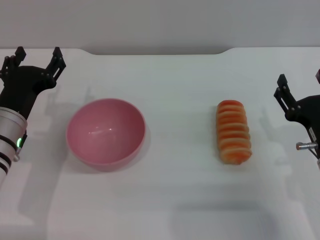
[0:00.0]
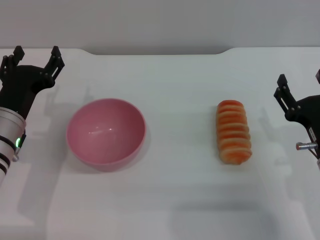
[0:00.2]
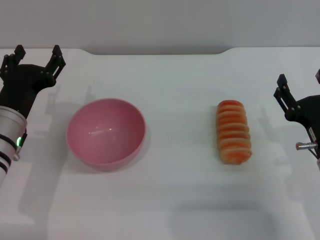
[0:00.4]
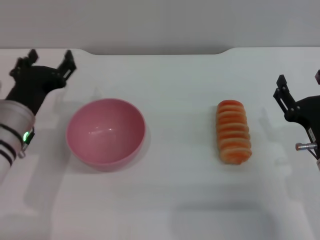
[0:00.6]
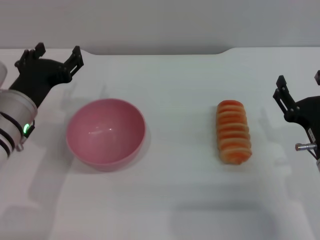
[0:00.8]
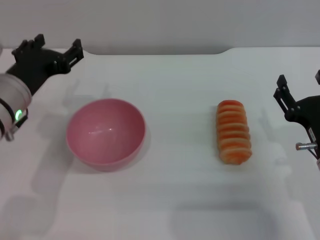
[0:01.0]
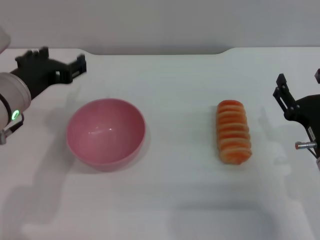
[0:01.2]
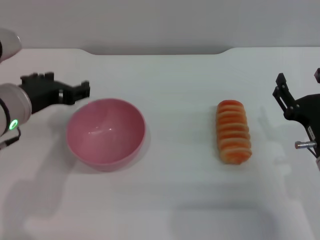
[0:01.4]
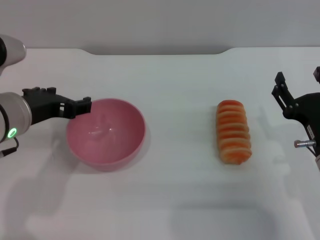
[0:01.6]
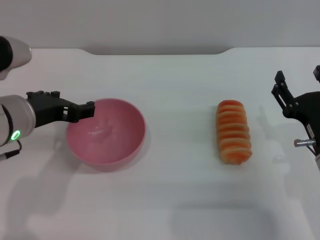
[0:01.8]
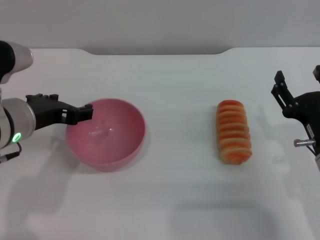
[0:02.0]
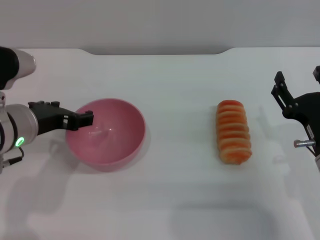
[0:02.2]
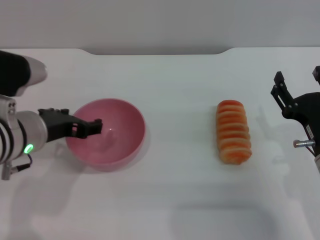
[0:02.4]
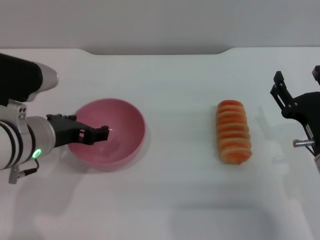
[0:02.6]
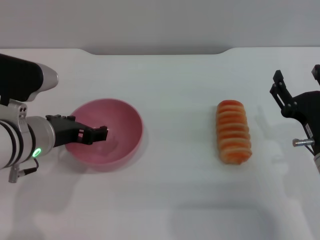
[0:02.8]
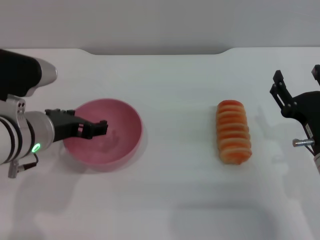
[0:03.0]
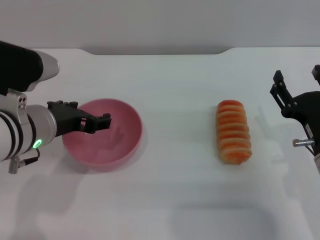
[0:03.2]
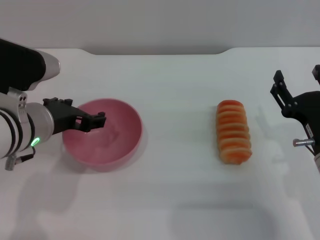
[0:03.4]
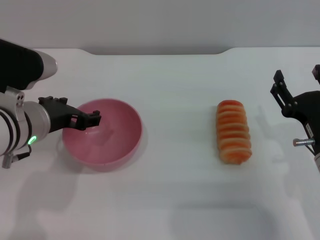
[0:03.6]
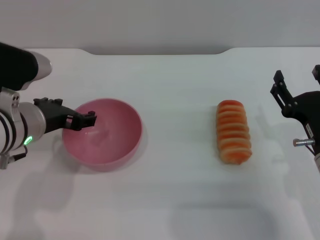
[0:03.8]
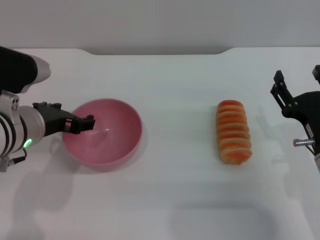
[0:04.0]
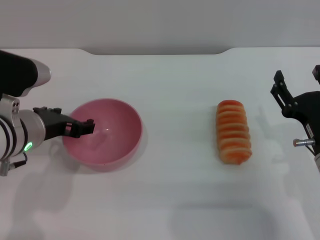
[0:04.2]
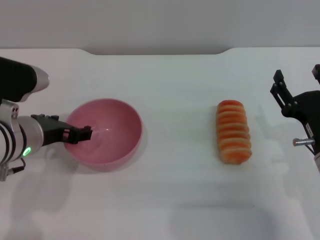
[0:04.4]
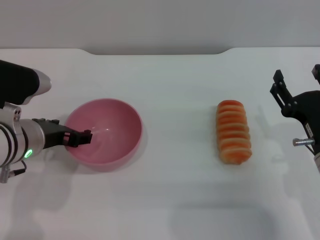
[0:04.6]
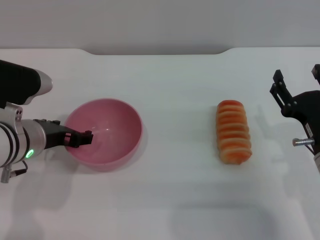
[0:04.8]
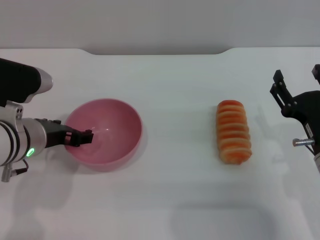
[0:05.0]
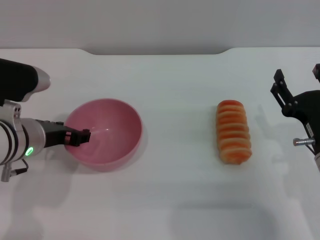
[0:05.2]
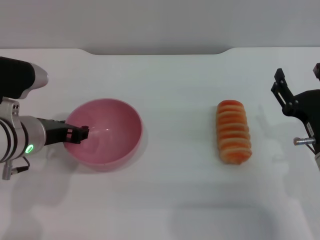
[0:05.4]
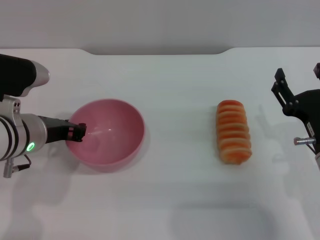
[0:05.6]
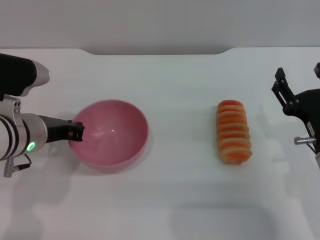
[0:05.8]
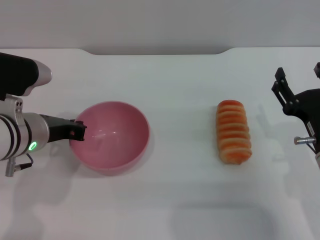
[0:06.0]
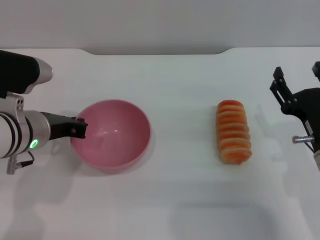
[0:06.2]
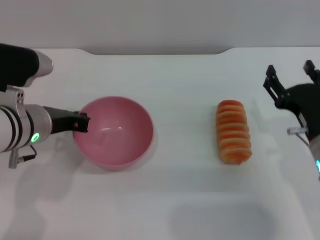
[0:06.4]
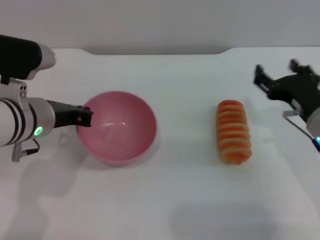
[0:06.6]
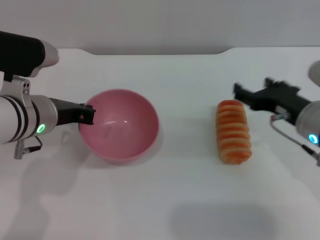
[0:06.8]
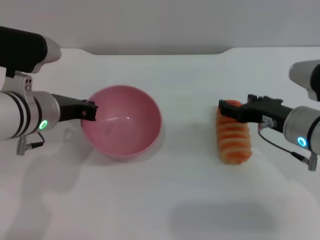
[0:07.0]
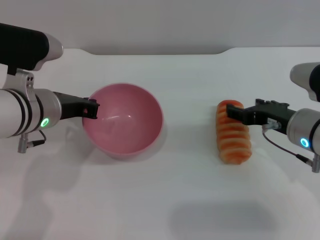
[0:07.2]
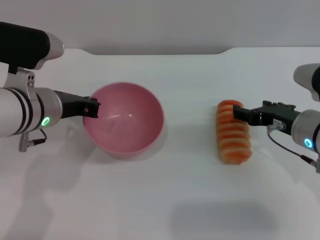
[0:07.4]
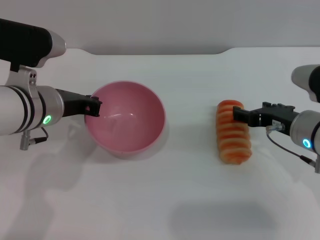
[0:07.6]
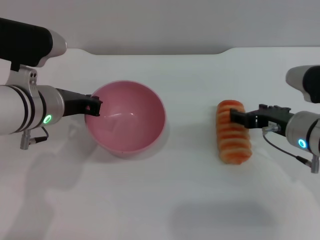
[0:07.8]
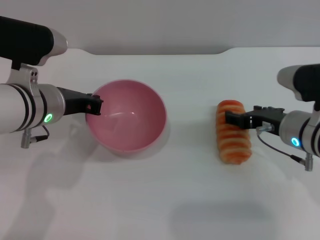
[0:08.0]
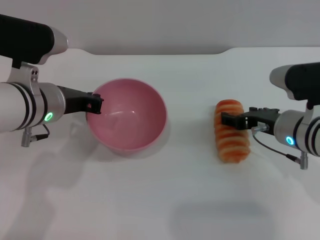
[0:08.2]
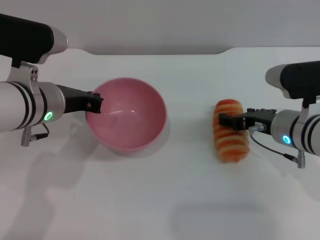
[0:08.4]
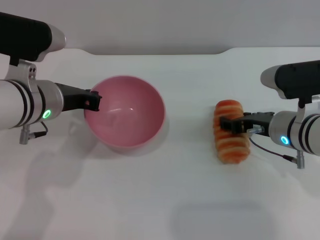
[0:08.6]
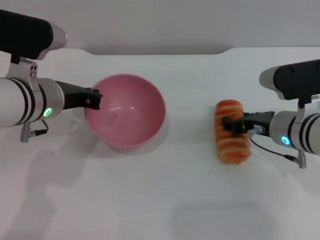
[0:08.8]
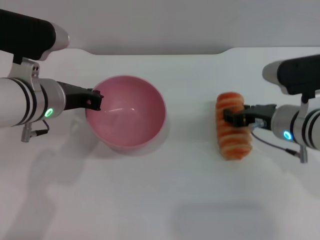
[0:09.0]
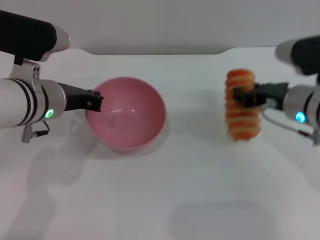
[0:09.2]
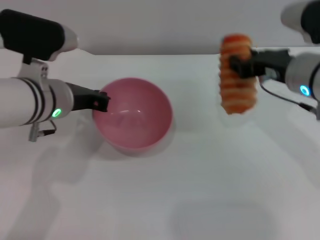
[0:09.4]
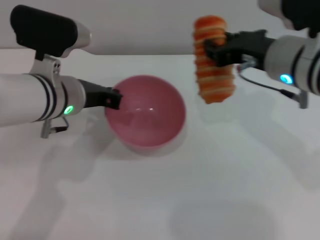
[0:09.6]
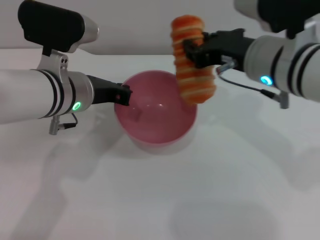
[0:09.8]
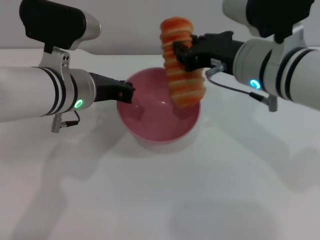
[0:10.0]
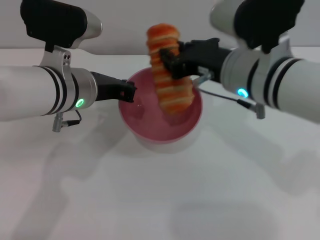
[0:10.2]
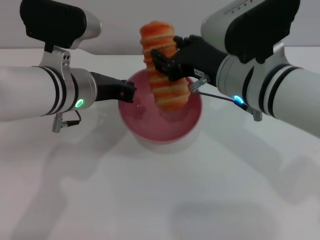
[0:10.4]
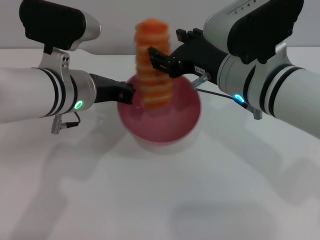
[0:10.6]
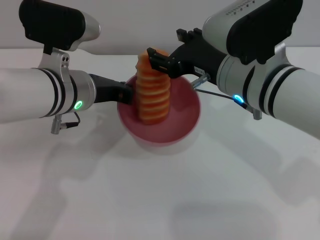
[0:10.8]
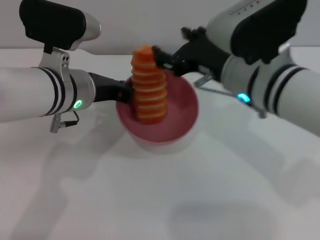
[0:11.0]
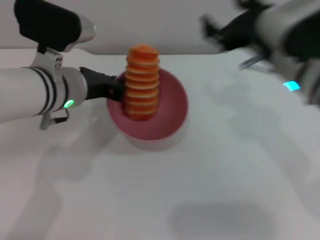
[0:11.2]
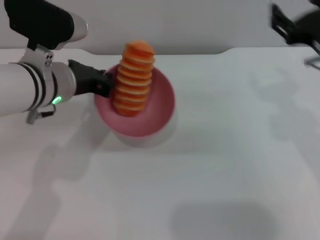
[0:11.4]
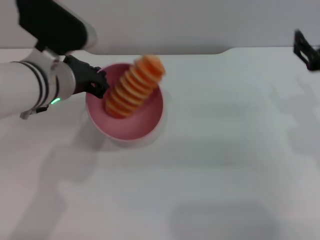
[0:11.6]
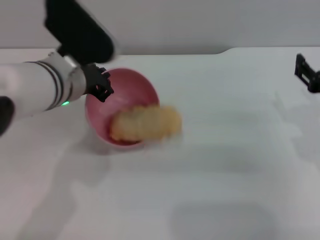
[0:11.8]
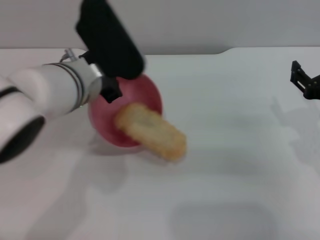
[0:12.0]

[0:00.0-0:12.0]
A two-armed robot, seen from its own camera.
Task of the whole recording: put the bread into the pink bowl and pour it out repeatedly.
Step, 0:00.0 to 0:07.2: Pick up the bowl with the left gripper.
Step, 0:07.4 to 0:09.2: Pick up the bread with the right gripper.
Step, 0:09.4 to 0:11.0: Place the bread into the bowl.
0:00.0 to 0:01.6: The left gripper travels upward by about 10 cm.
0:01.6 to 0:04.4: The grippers move only a little.
0:04.4 to 0:06.0: The left gripper closes up.
0:06.0 to 0:07.6: The right gripper moves forward, roughly 5 cm.
0:07.6 to 0:09.0: The grippers stay close to where they were, moving slightly.
0:09.0 to 0:10.4: The right gripper is displaced upward and to the left by approximately 15 cm.
0:10.4 to 0:12.0: The right gripper shifts some 20 cm to the right and downward, and opens its fingers.

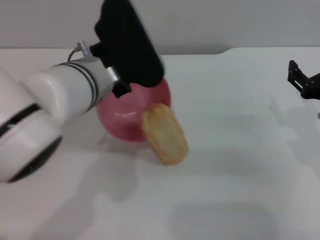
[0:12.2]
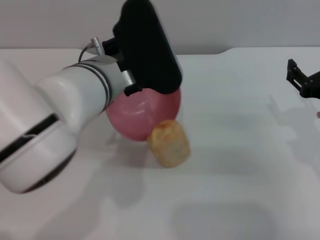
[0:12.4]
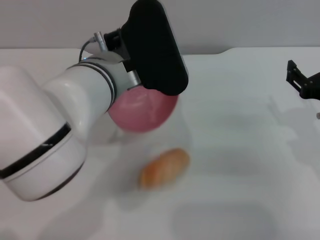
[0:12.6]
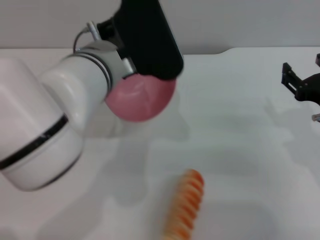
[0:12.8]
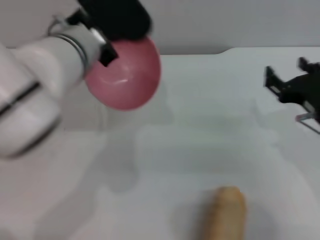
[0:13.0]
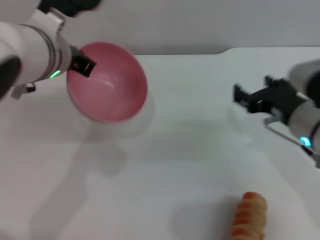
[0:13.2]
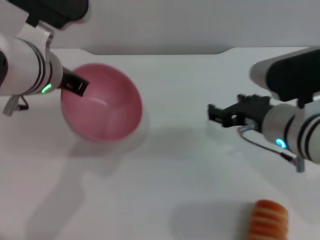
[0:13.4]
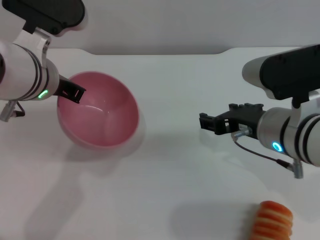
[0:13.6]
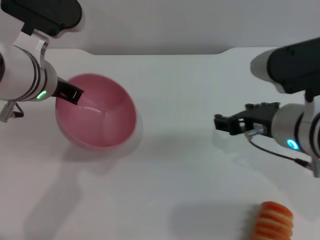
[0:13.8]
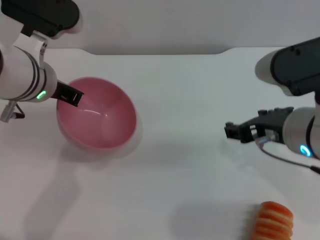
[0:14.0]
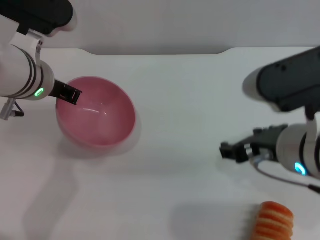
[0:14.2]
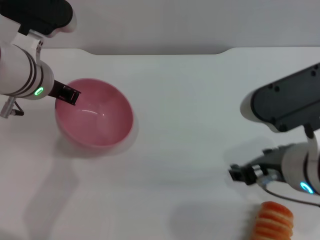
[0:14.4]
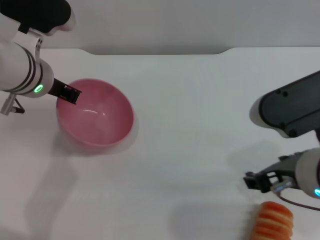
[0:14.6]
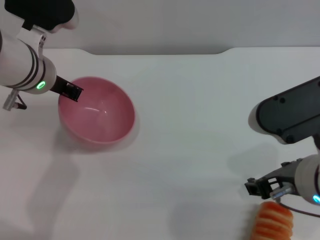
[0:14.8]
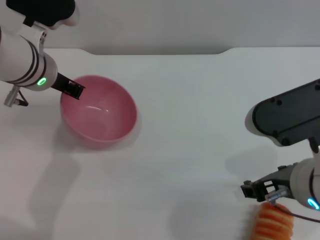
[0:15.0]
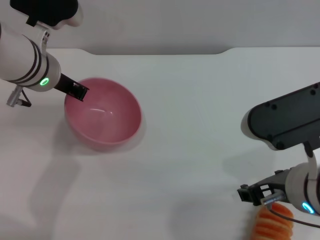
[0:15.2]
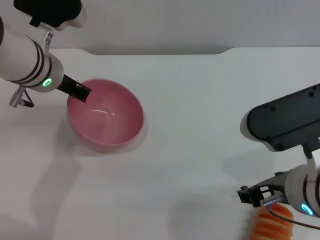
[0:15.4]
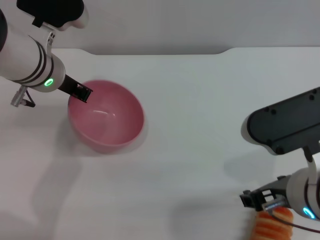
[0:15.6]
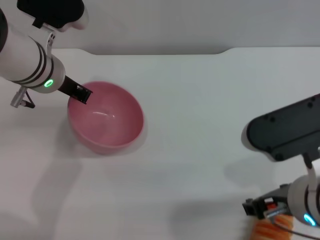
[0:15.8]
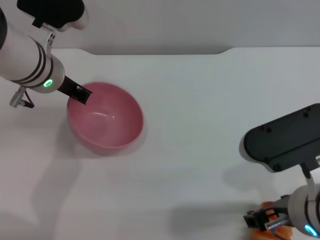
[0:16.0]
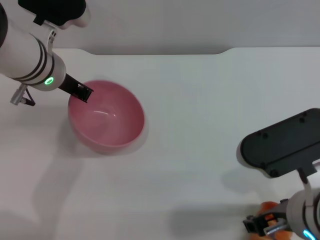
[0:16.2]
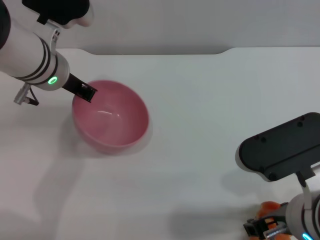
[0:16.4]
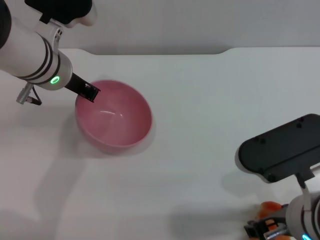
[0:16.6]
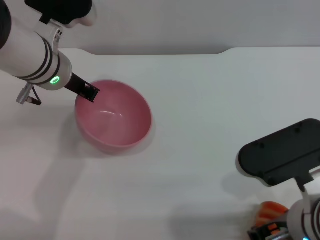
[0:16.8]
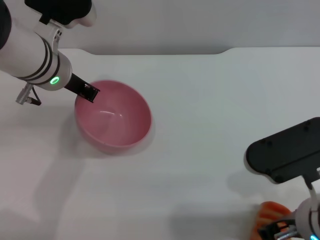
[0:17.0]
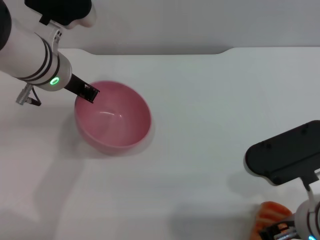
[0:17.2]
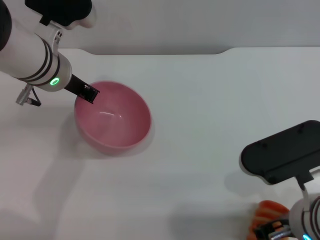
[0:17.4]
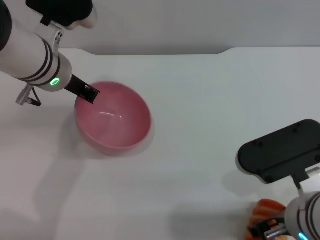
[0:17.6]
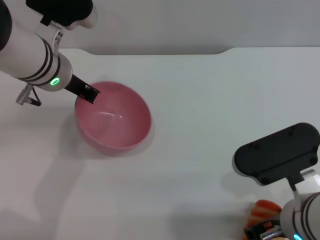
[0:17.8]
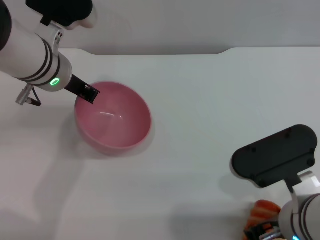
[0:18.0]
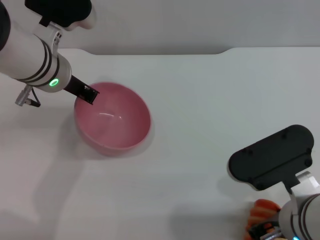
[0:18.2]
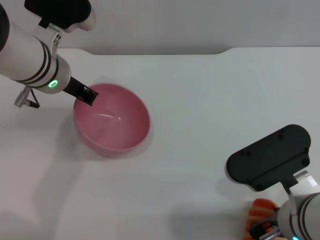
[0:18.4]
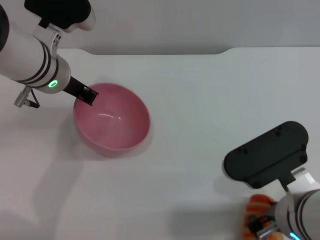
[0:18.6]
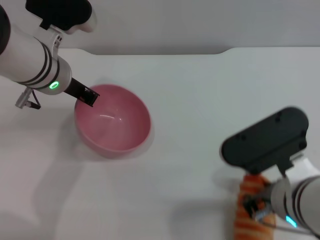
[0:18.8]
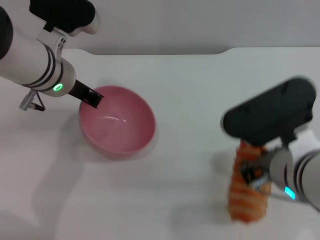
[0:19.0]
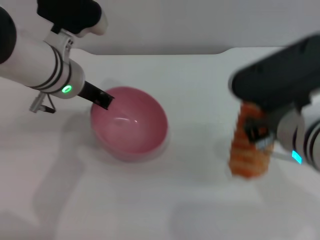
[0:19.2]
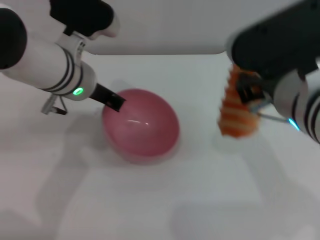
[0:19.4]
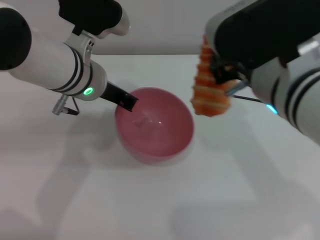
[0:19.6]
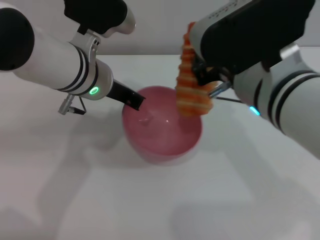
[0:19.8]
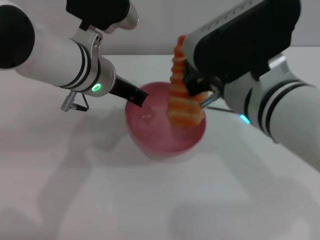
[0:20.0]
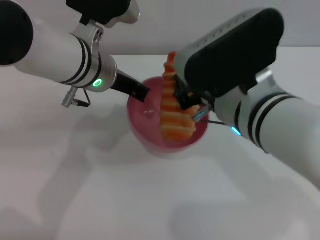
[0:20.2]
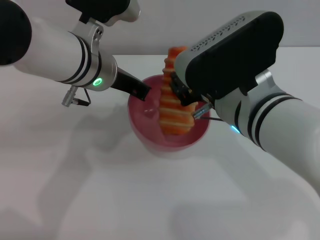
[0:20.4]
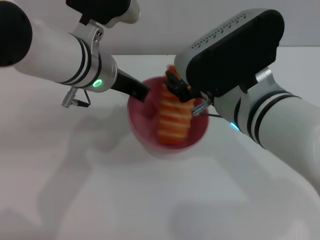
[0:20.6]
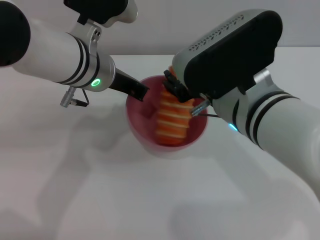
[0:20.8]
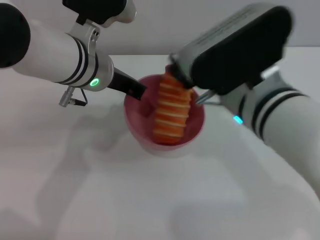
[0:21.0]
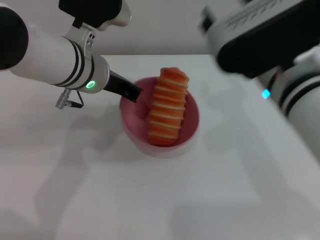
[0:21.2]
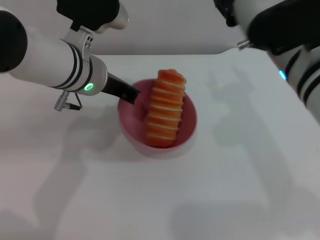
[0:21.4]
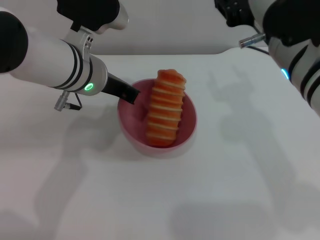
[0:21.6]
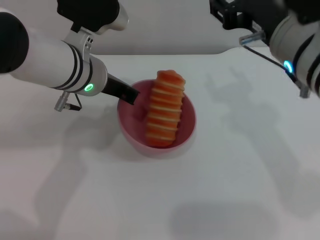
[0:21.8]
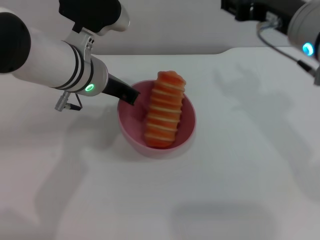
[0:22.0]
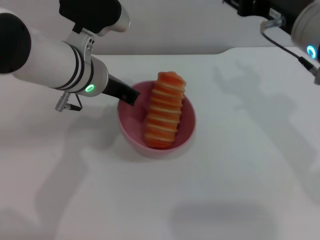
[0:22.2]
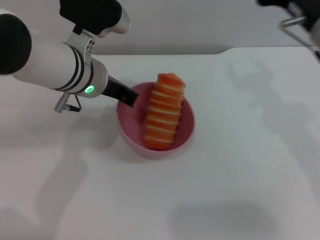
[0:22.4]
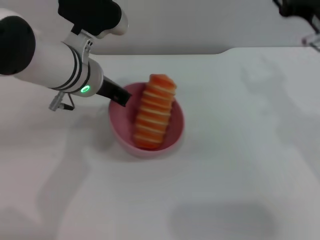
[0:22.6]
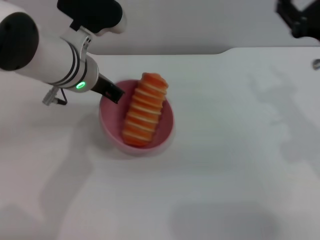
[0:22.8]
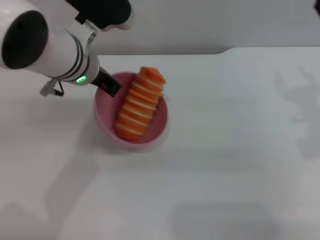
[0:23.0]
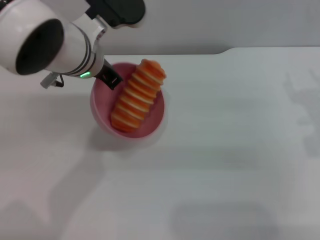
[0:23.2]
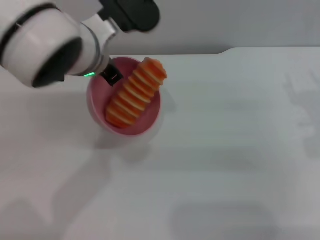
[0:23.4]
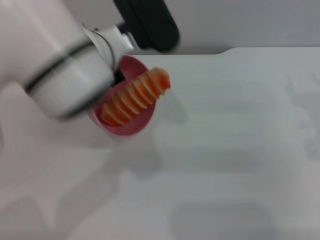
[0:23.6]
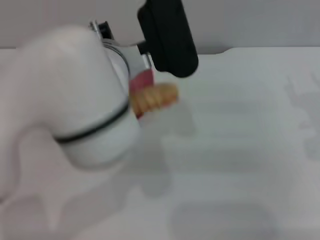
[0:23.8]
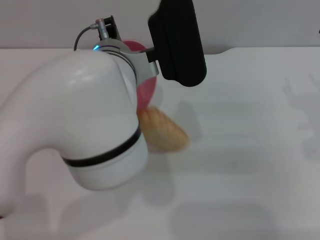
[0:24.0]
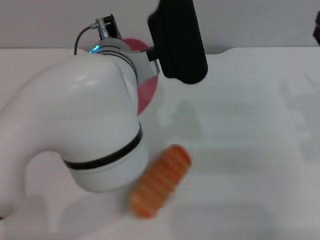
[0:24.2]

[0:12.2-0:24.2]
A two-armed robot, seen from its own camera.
Task of the whole recording: put the bread into the pink bowl and pour it out repeatedly.
Step, 0:13.0 to 0:19.0: Pick up the bread with the right gripper.
Step, 0:19.2 to 0:21.4: Place the bread into the bowl.
0:12.2 to 0:13.8: The right gripper is displaced to the left and upward by some 10 cm. Meanwhile the left gripper goes approximately 5 cm to the left.
0:13.8 to 0:15.2: The left gripper shifts by some 5 cm. Meanwhile the right gripper is displaced backward by roughly 5 cm.
0:15.2 to 0:18.2: The grippers make only small movements.
0:18.2 to 0:19.8: The right gripper shifts approximately 10 cm upward and forward, and closes its fingers.
0:19.8 to 0:21.2: The right gripper opens.
0:21.2 to 0:22.6: The right gripper shifts about 10 cm to the right.
0:22.6 to 0:24.2: The right gripper is displaced downward by approximately 5 cm, while the left gripper is displaced to the right and backward by about 10 cm.
